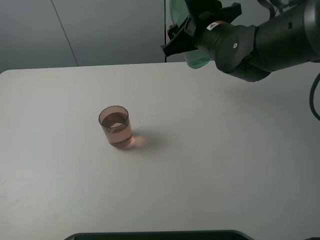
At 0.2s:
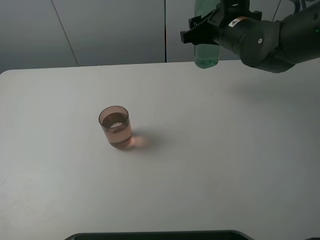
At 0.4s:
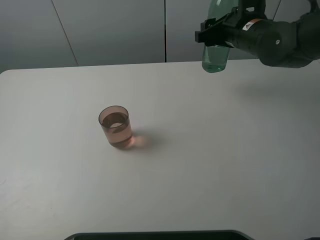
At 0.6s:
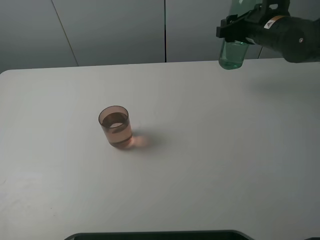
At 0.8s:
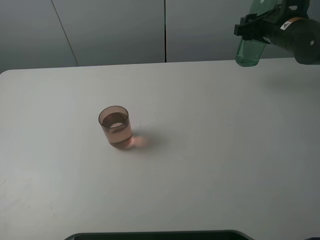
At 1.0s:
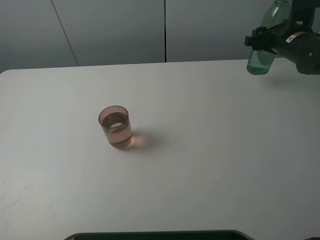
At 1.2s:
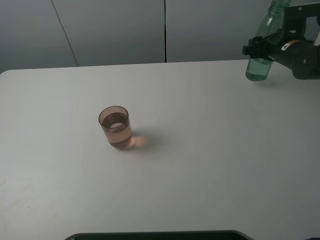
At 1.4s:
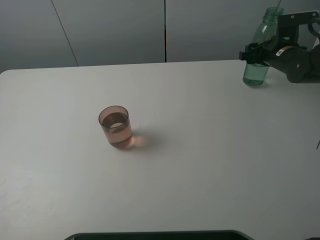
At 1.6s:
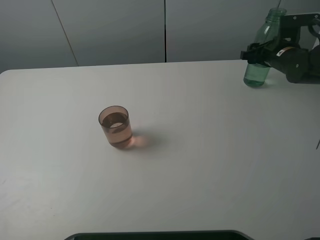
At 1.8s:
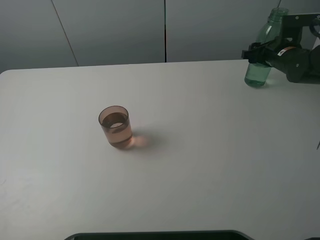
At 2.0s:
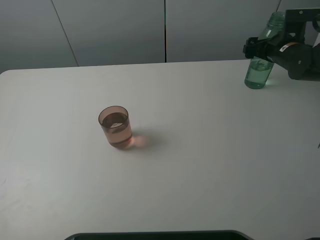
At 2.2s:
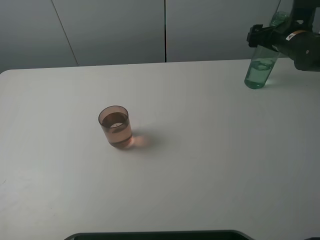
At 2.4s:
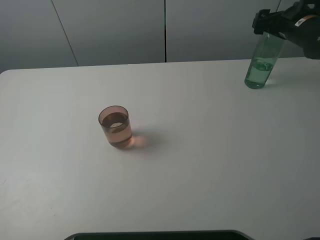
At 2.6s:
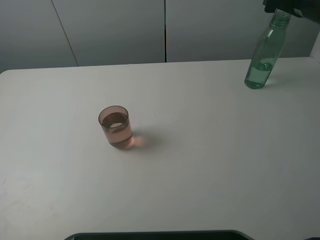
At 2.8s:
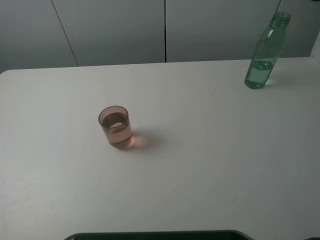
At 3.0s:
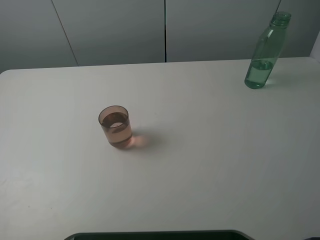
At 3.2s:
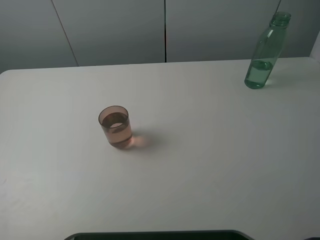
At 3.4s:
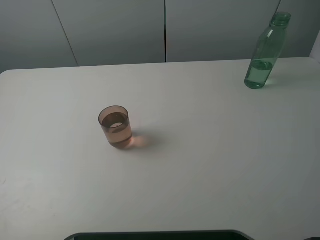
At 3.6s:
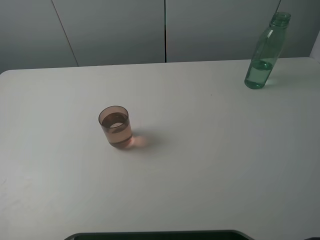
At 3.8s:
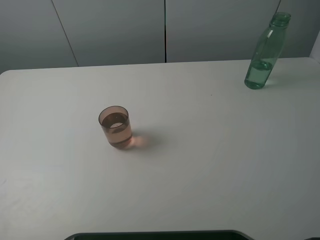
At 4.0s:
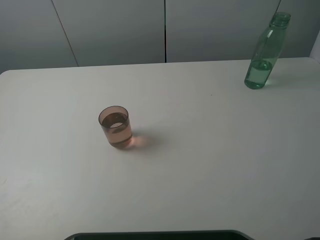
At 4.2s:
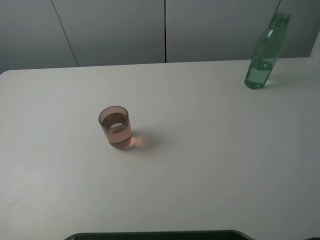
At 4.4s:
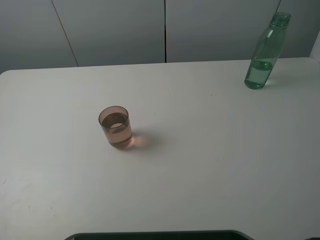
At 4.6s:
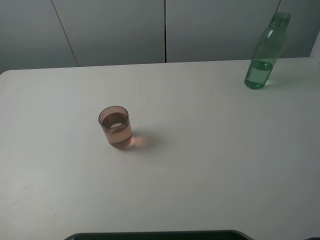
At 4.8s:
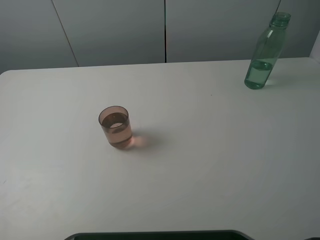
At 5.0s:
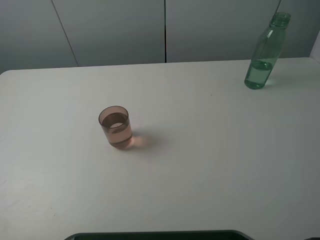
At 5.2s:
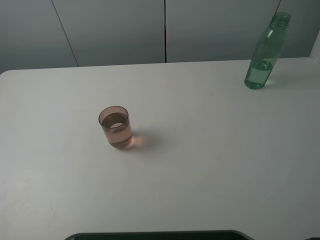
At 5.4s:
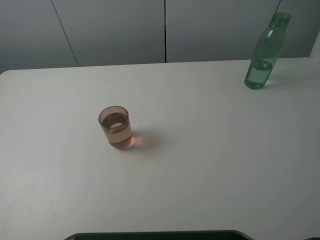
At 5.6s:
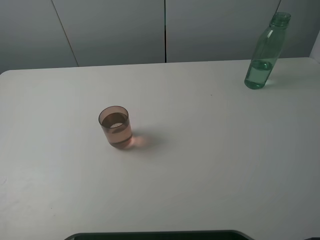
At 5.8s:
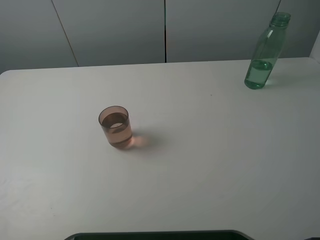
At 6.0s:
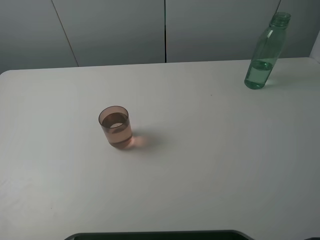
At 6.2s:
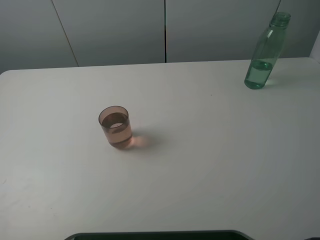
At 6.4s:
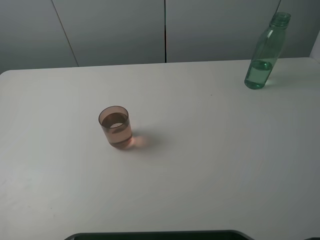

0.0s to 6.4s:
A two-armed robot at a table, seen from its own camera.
Task of the whole recording: pick up the bottle filled with water and pour it into the pink cup.
Step, 0.0s to 2.4s: Place the green bottle with the right gripper.
0.0s to 1.6s: The right gripper is displaced to the right, downward and forward by approximately 25 cm.
1.6s to 3.2s: The right gripper heads upward and backward, covering approximately 30 cm, and opens up.
4.8s to 6.4s: The two grippers keep their place.

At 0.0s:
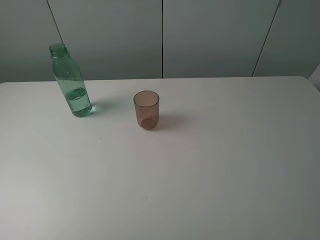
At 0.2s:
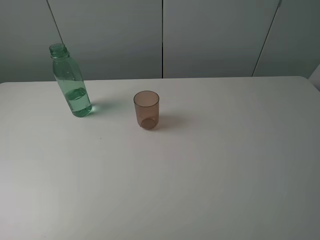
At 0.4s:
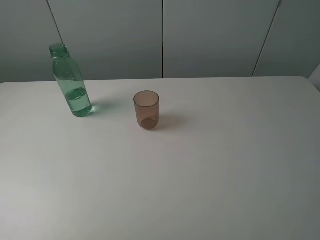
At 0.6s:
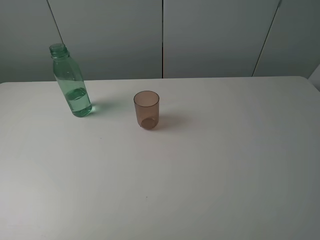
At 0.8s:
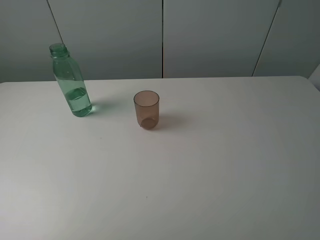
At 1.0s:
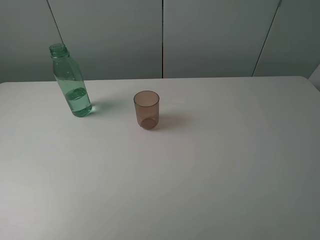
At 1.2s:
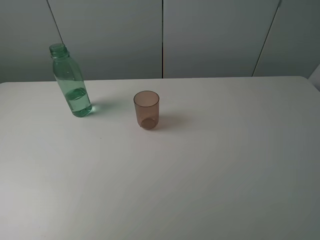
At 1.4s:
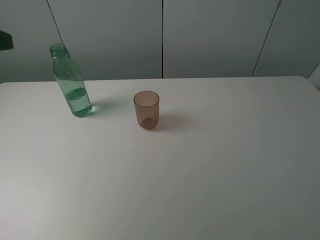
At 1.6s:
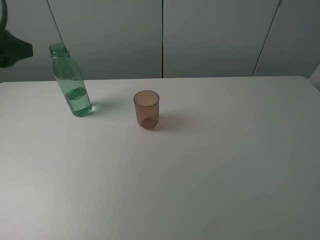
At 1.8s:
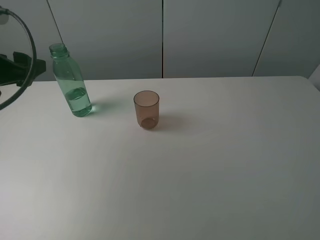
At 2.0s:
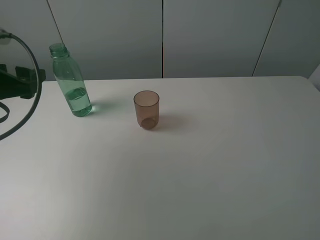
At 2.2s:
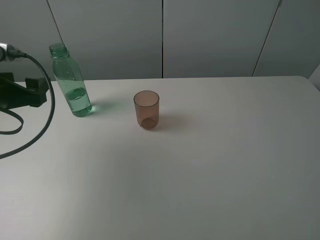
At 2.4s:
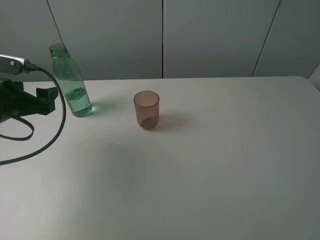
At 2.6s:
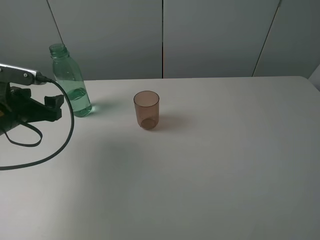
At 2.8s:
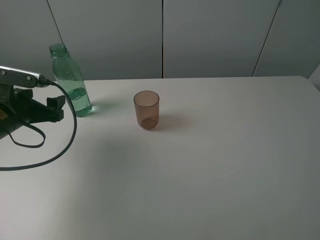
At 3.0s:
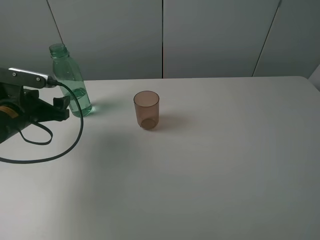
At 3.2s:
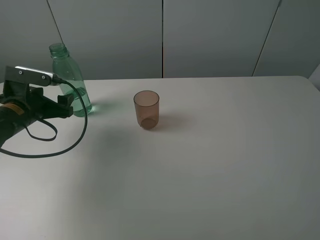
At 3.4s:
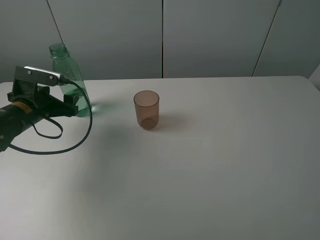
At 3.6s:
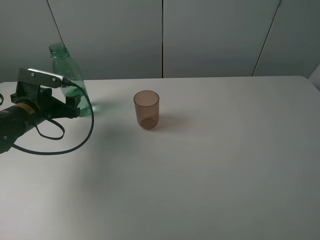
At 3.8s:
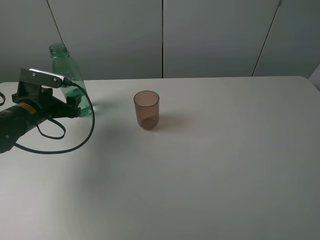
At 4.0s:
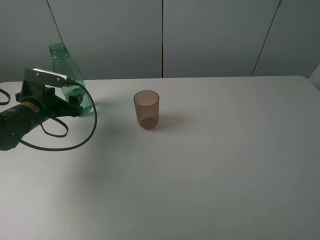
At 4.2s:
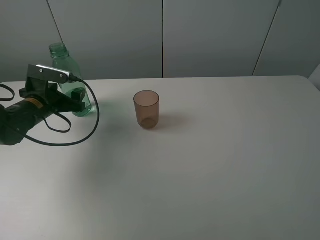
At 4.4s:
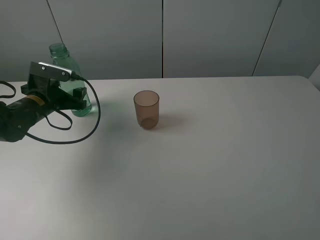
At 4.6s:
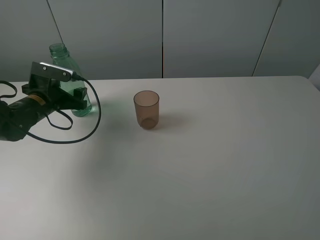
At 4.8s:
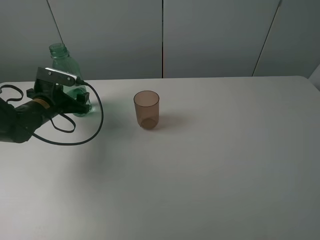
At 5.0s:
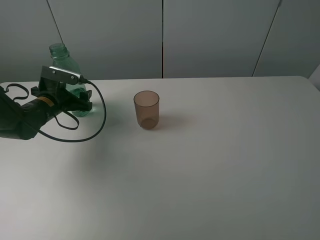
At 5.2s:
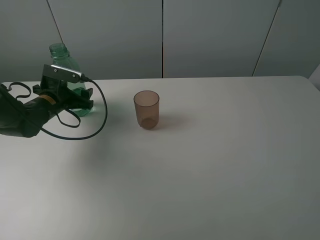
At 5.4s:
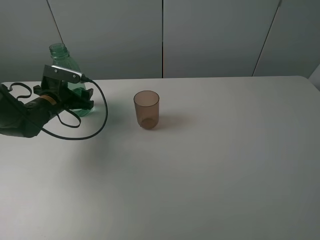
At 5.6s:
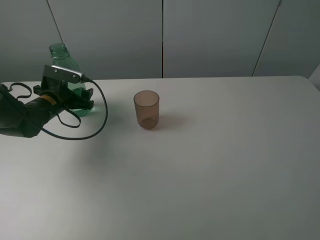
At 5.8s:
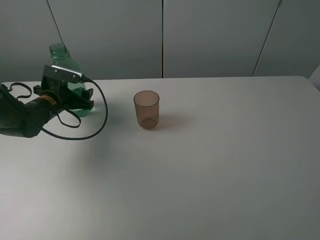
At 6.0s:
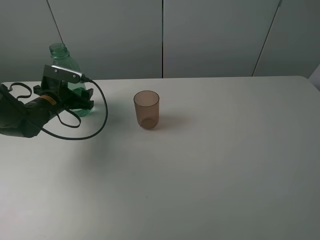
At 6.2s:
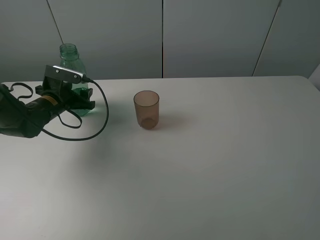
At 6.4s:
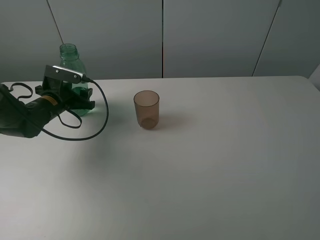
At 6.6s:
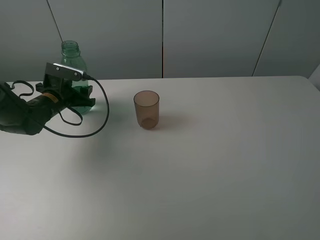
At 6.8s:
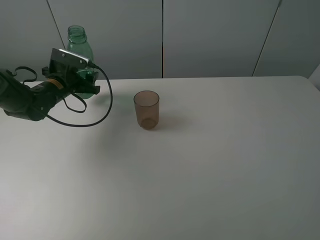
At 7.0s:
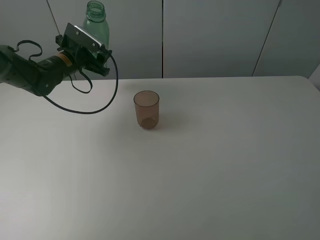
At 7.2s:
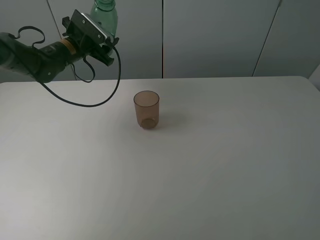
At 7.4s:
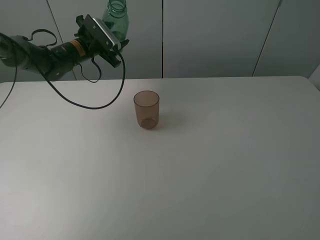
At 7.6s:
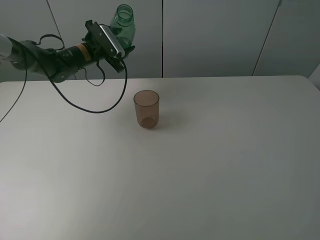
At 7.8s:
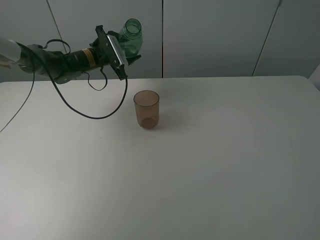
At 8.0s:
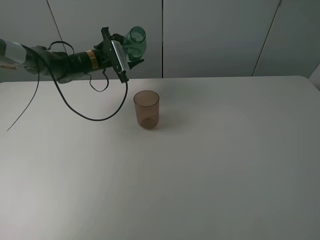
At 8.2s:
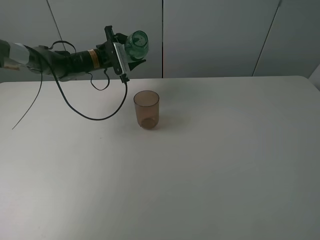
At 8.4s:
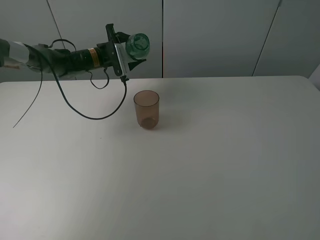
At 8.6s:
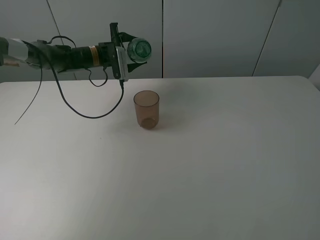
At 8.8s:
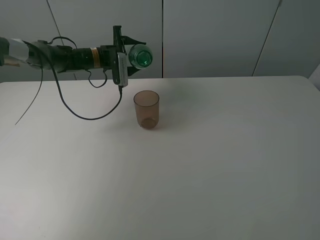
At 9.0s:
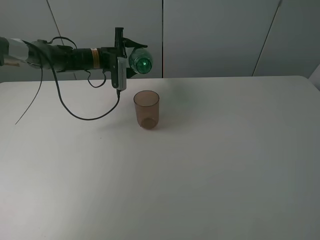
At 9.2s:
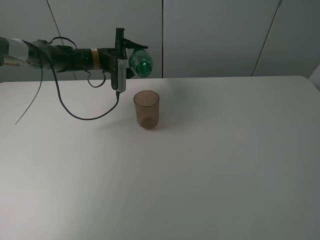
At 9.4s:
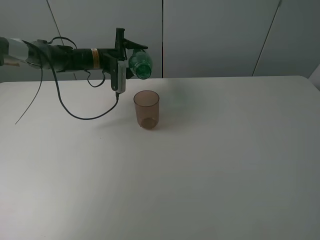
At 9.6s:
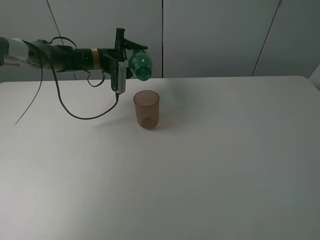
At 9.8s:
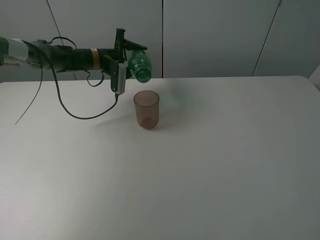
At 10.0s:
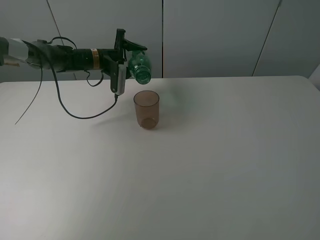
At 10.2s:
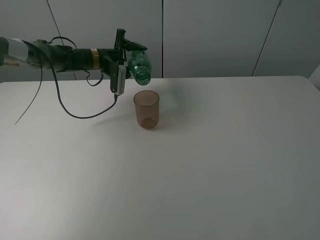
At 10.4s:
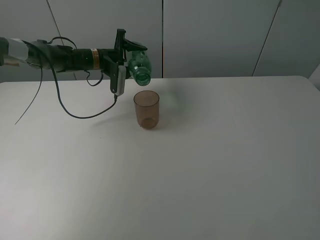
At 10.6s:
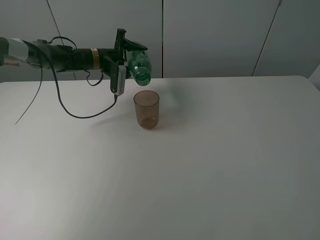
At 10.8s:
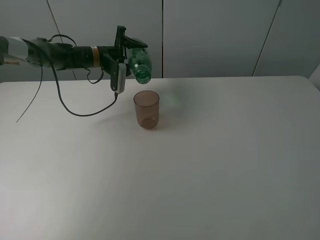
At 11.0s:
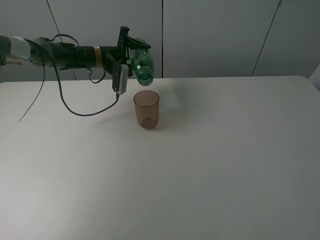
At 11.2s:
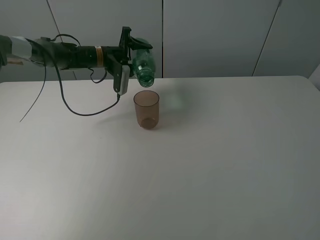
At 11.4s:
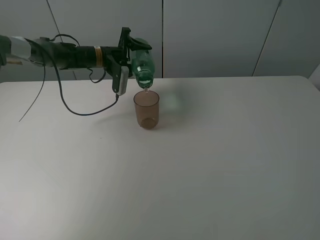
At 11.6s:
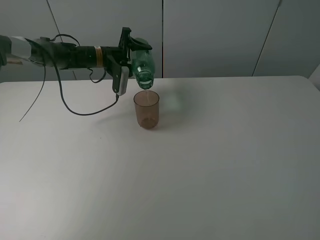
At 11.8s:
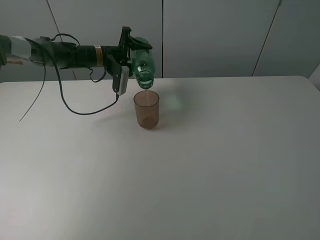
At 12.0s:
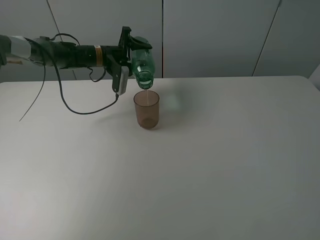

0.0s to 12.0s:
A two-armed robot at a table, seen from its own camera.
Task of the whole recording: pick up the bottle filled with water and pour it into the pink cup.
Step, 0.0s to 6.4s: Grasp the green bottle with the left gripper.
0.0s to 1.6s: The left gripper moves forward, approximately 25 cm.
1.6s to 3.0s: The left gripper moves downward, roughly 15 cm.
3.0s to 4.4s: The left gripper is displaced forward by some 5 cm.
4.4s to 6.0s: The grippers stay close to where they were, moving slightly.
6.0s to 7.6s: The left gripper heads forward, to the right and upward, covering roughly 15 cm, and closes its fingers.
9.0s to 10.4s: The grippers move only a little.
10.4s to 12.0s: The grippers make only small movements.

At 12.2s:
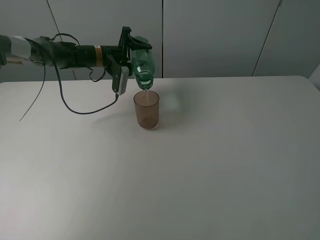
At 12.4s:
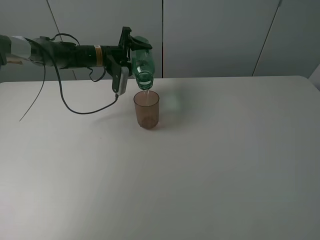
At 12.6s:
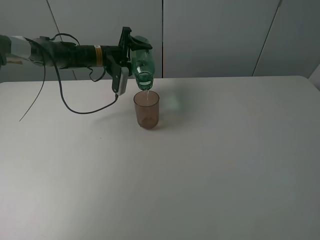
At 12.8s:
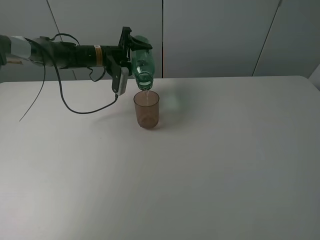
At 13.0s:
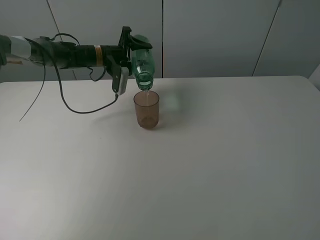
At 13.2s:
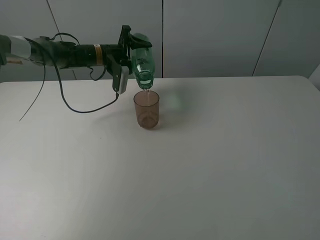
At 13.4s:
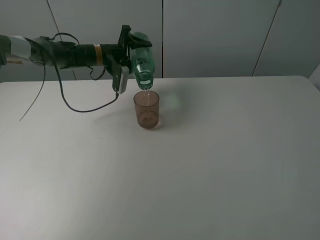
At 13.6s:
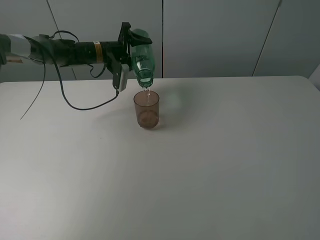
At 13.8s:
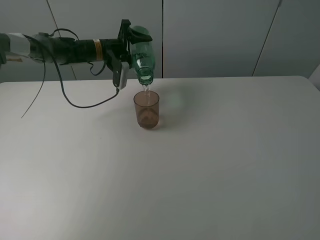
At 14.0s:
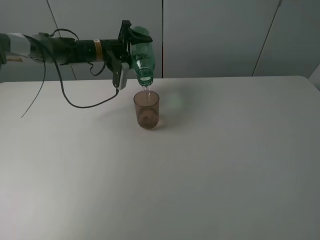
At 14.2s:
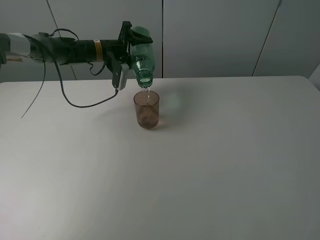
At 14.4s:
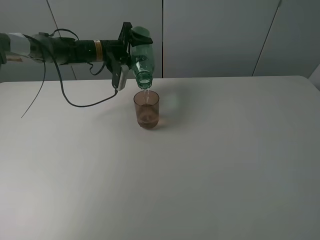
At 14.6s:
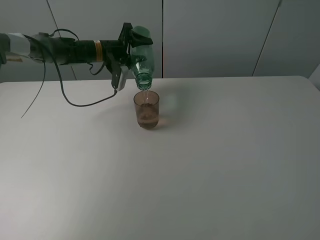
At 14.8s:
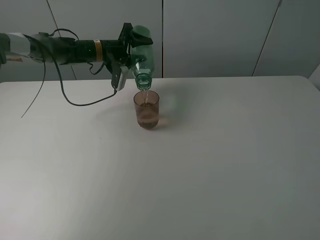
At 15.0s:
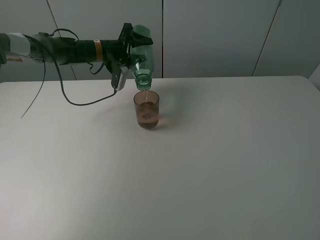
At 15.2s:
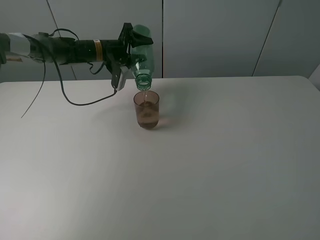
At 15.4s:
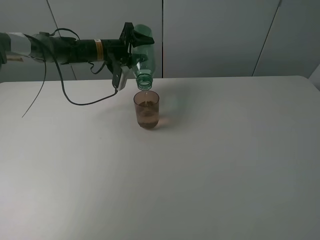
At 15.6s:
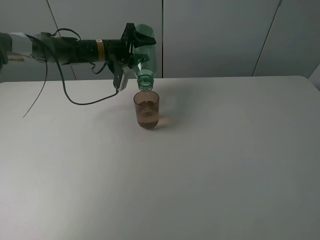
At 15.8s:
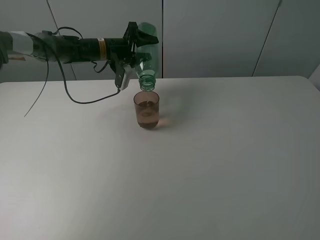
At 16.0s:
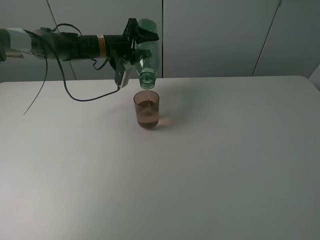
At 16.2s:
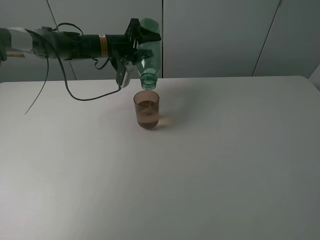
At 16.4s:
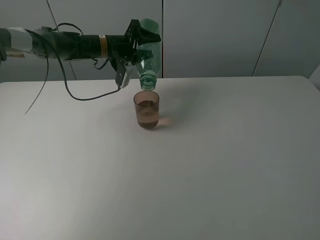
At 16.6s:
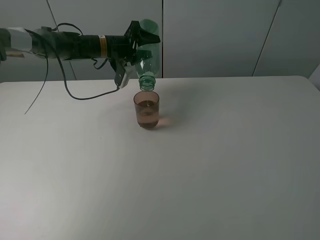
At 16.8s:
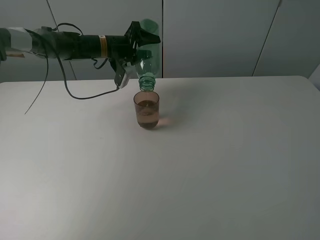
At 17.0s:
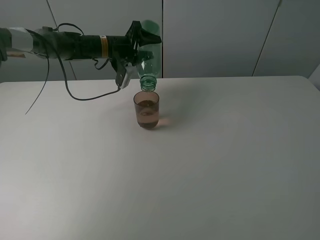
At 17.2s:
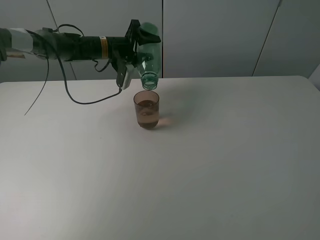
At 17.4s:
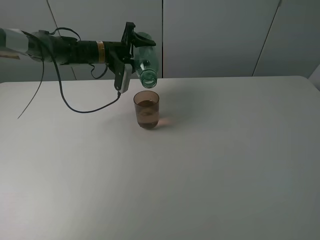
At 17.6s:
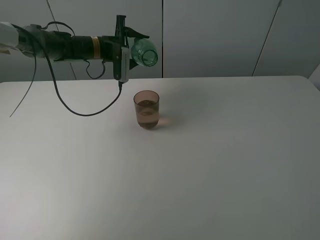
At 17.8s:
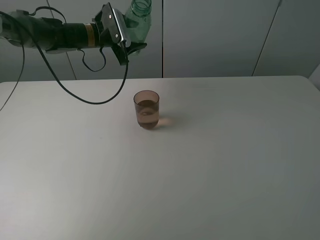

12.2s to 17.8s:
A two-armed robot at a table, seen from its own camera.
Task of the whole recording: pick up the bottle filled with water and pour it into the pink cup.
Step, 12.2s to 17.4s: Pour water from green bottle to pink cup with the left gripper.
12.2s to 15.0s: There are only small adjustments of the grippers.
15.0s to 16.4s: The grippers move only a little.
